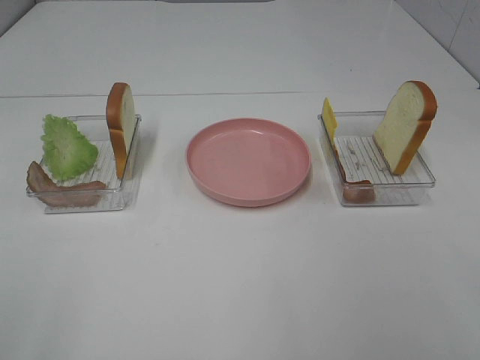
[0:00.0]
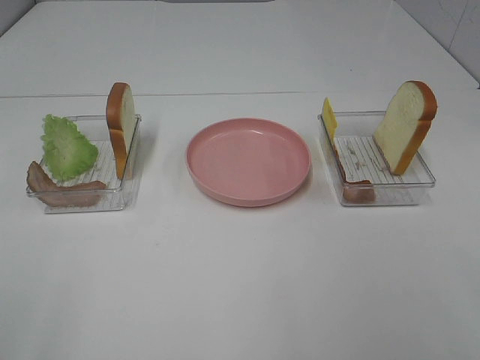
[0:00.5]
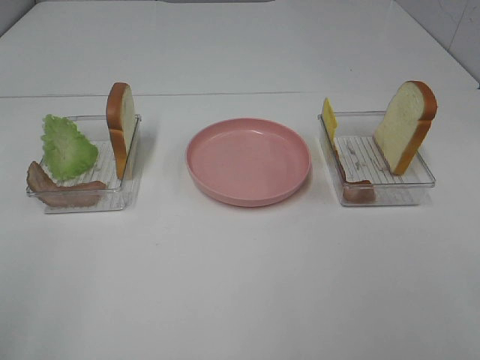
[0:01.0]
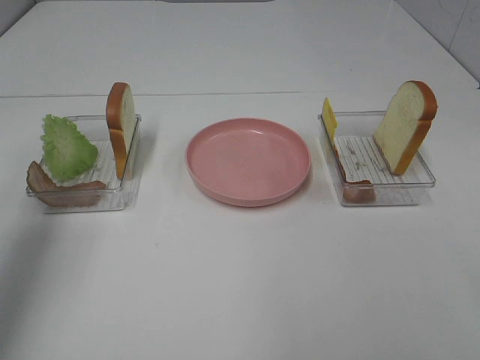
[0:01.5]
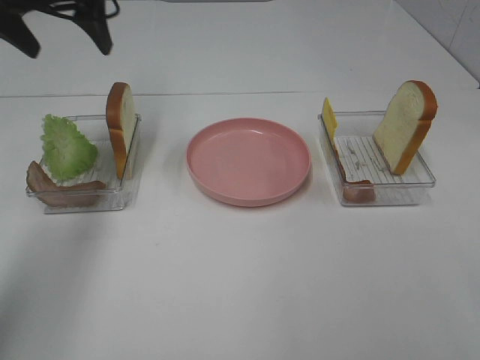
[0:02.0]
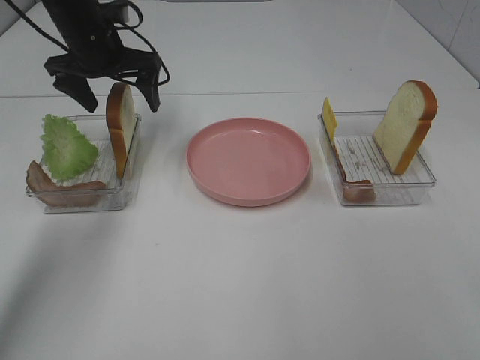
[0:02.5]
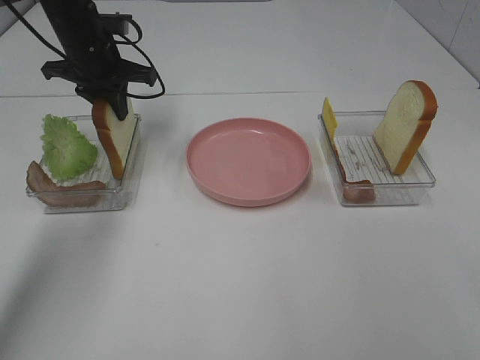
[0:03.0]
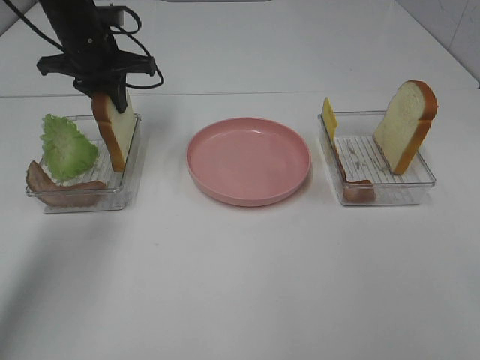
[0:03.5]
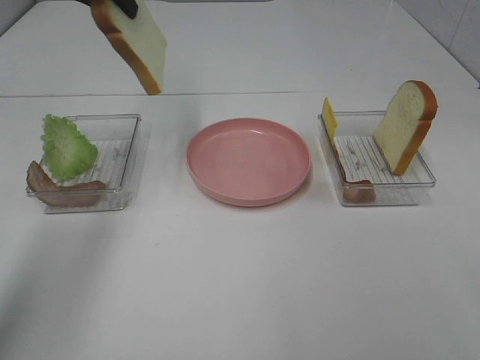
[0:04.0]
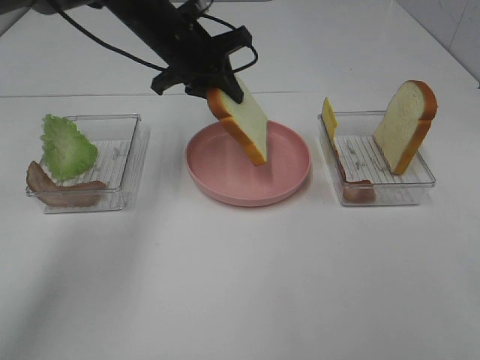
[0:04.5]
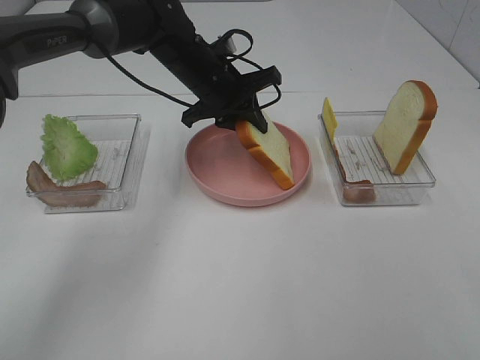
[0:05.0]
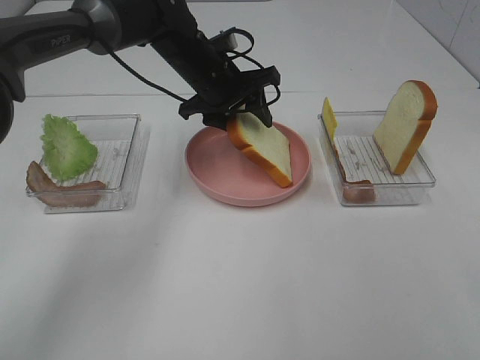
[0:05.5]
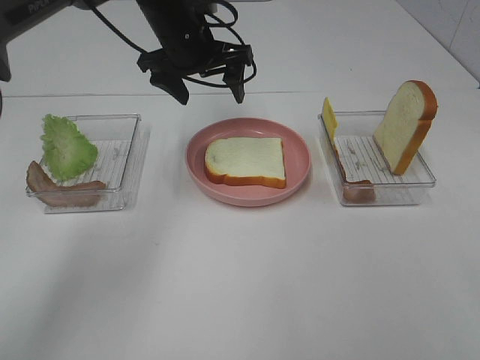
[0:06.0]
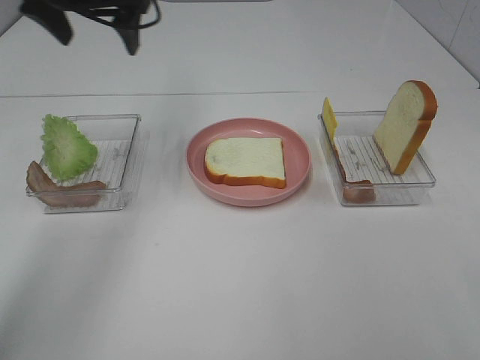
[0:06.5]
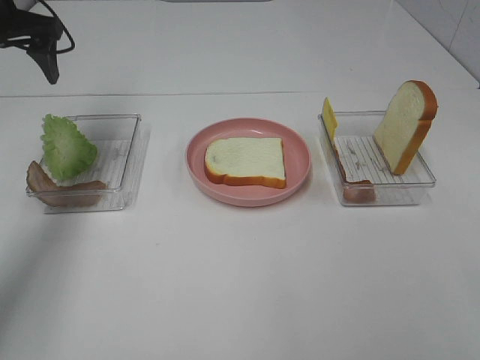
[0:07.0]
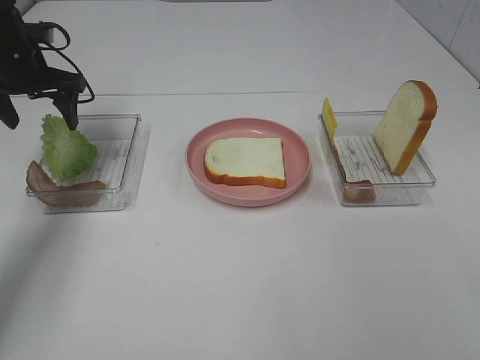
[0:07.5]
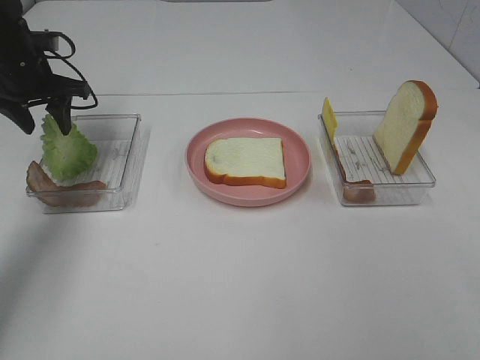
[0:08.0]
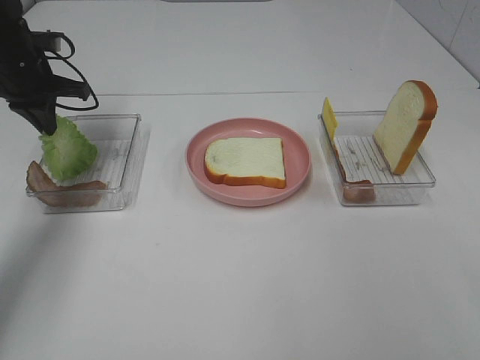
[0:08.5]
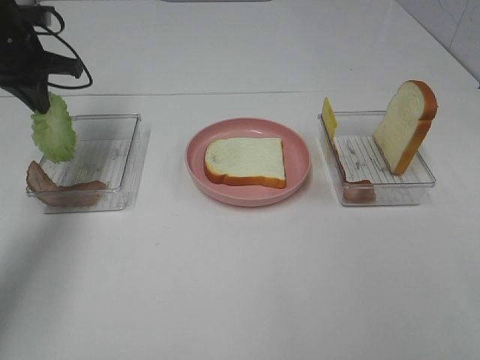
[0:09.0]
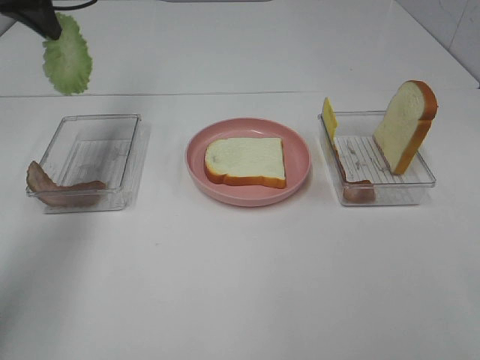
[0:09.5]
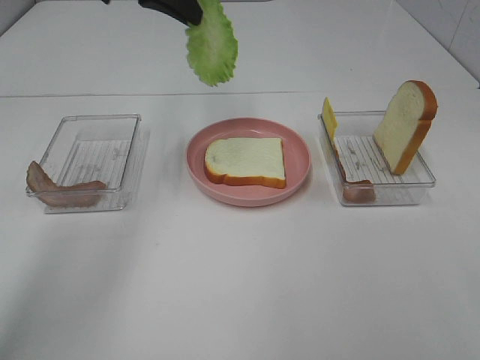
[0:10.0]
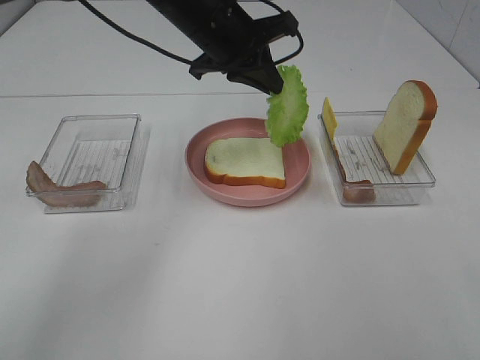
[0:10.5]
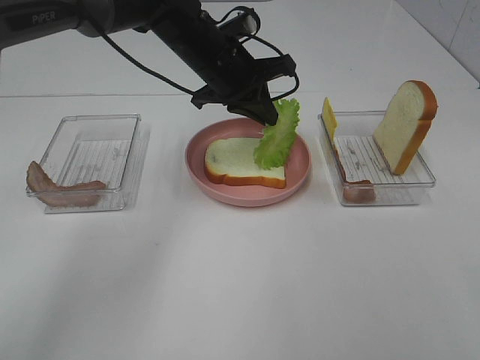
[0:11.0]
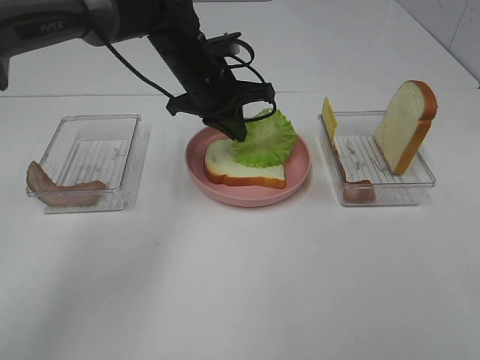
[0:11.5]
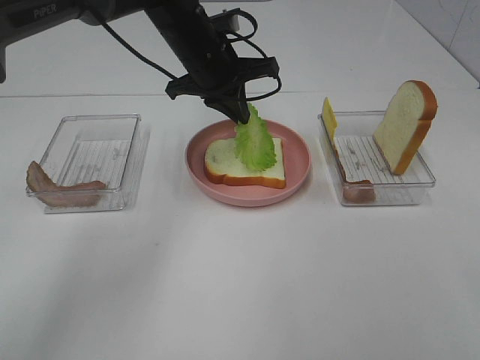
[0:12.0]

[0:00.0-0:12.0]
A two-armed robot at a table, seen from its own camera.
Task of the whole recording: Make sandwiches.
Step, 0:00.0 to 0:03.0: Left hand:grab the bread slice.
Step, 0:03.5 to 0:06.0: Left hand:place the bread slice on the plate.
Step, 0:06.5 to 0:08.5: Left hand:grab the lettuce slice.
0:00.0 to 0:02.0: The left gripper shifts about 40 cm forward.
0:02.0 to 0:04.0: The left gripper goes downward and returns, approximately 10 cm each way, and closes up.
0:04.0 to 0:06.0: The left gripper is displaced to the right and downward by approximately 15 cm, and opens up.
0:06.0 to 0:08.0: The left gripper travels to the left by approximately 20 cm.
0:08.0 to 0:10.0: The left gripper heads to the right and upward, covering approximately 25 cm, and closes its fingers.
0:10.0 to 0:12.0: The left gripper shifts about 15 cm downward and to the right.

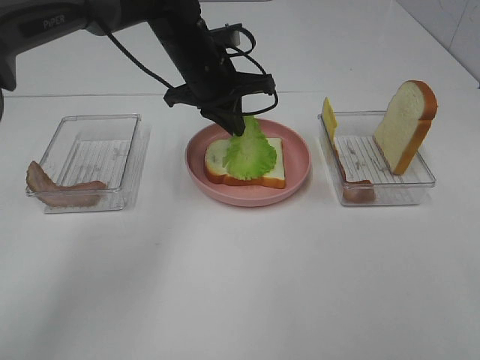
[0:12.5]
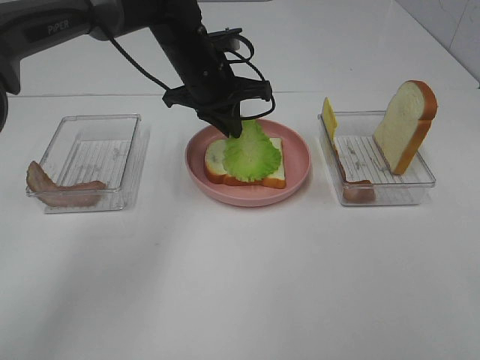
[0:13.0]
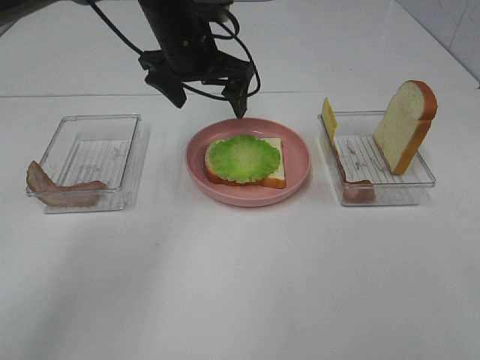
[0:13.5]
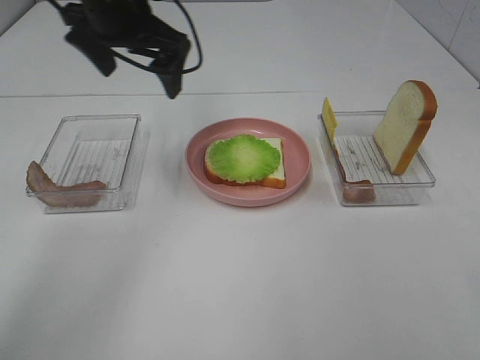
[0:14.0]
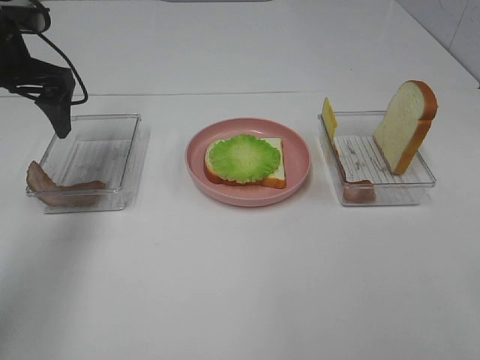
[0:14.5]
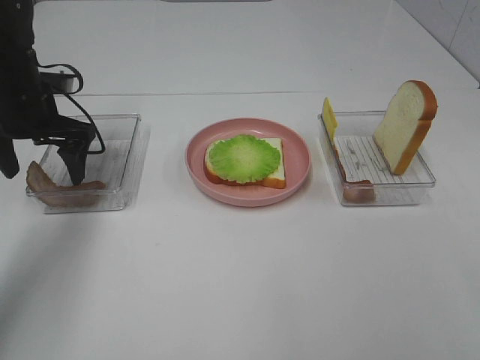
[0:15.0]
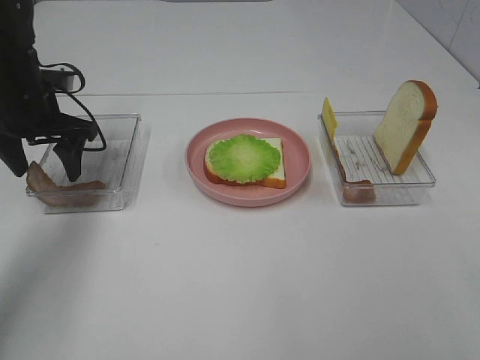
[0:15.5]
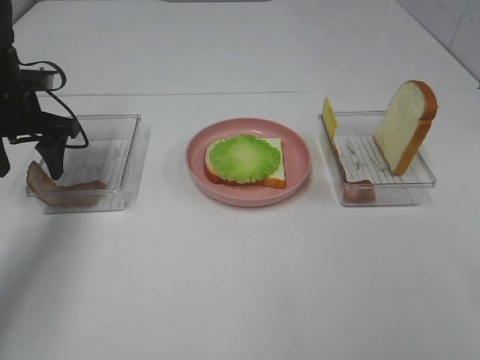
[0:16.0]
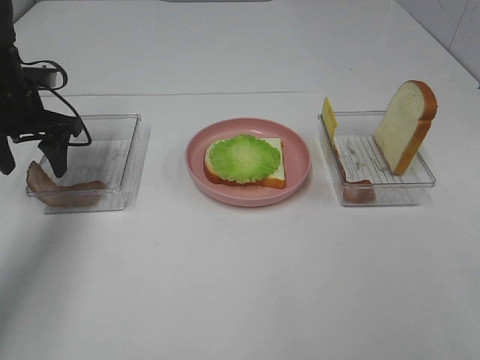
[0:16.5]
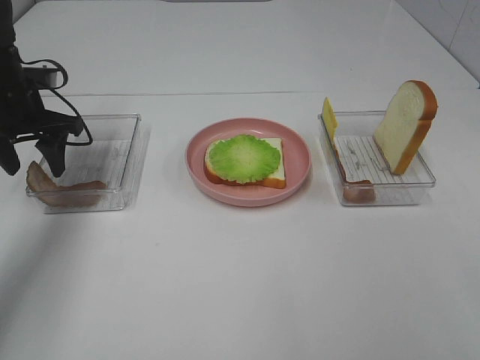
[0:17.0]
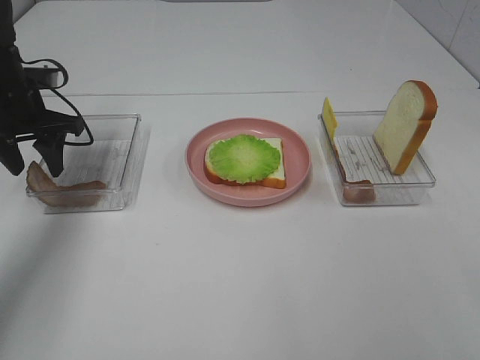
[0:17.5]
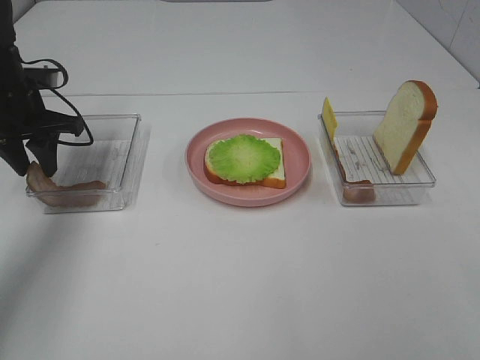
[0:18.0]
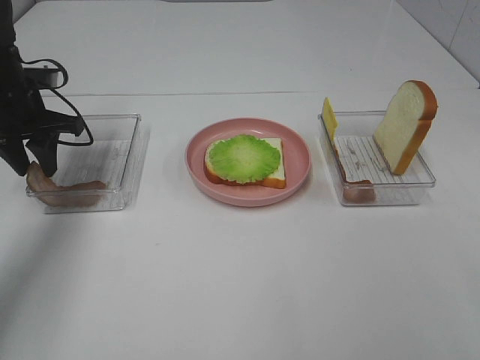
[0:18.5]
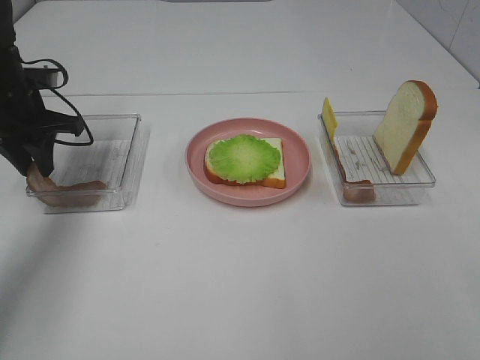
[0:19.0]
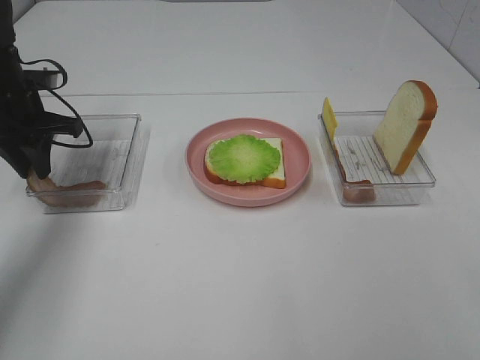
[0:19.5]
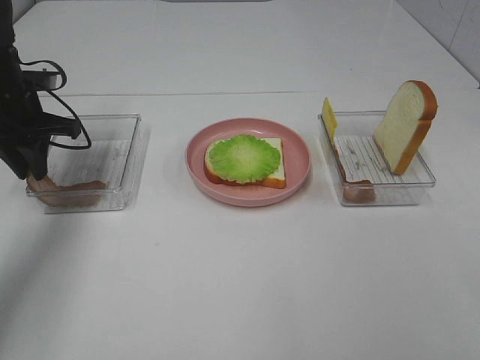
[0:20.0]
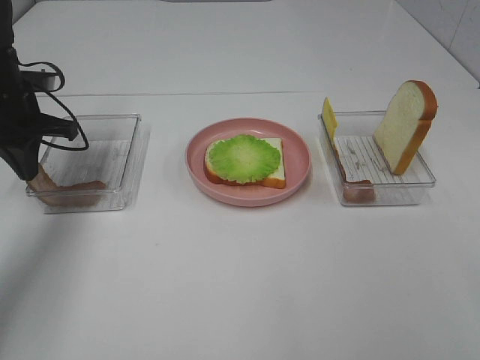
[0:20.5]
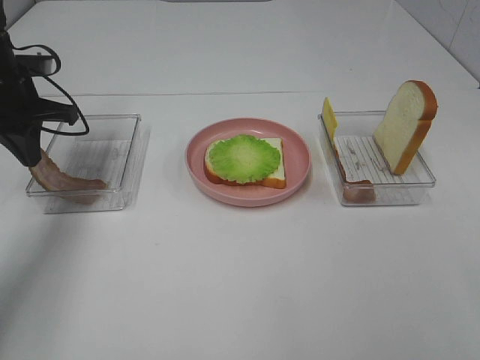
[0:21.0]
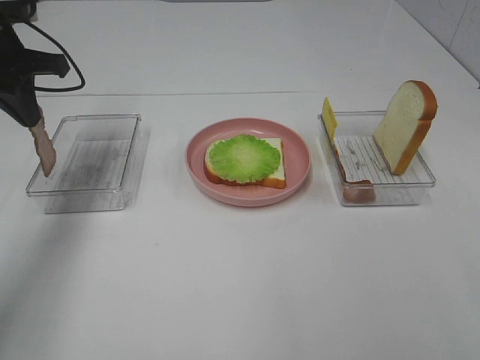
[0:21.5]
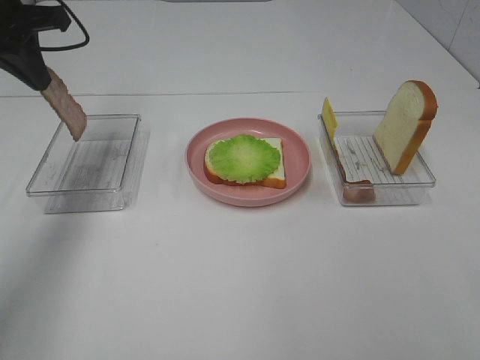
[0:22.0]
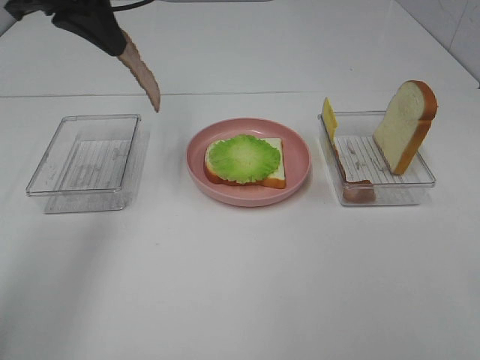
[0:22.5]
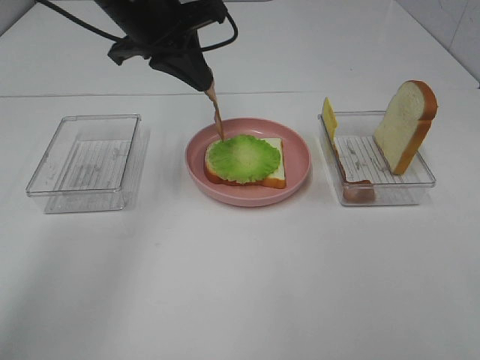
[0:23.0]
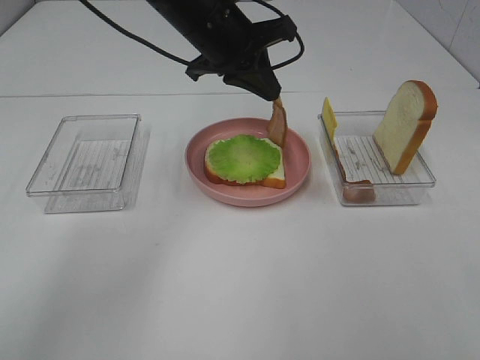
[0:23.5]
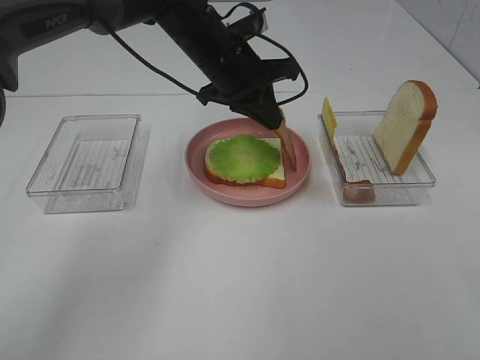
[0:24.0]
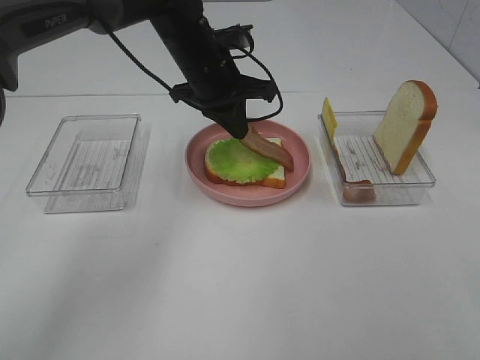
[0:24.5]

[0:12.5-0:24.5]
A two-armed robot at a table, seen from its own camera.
Task of the whole recording: Make sandwiches.
Step, 0:13.5 to 0:21.0: Left hand:grab the bacon.
0:12.5 to 0:14.5: The left gripper goes roughly 20 cm to the left, and opens up.
0:14.5 to 0:16.5: The left gripper goes roughly 10 cm downward.
0:16.5 to 0:18.5: Both grippers stay put.
0:18.5 to 0:20.5: The left gripper closes up.
0:20.5 to 0:22.5: The left gripper moves upward and to the right, some 20 cm.
0:22.5 to 0:24.5: The left gripper travels to the right and downward by about 20 cm.

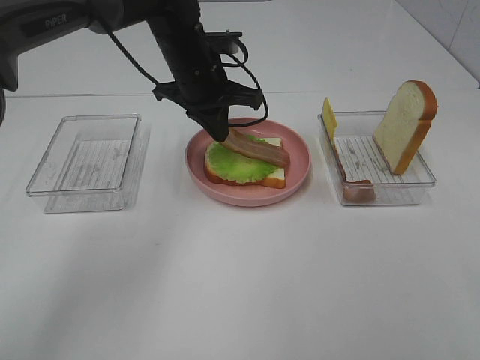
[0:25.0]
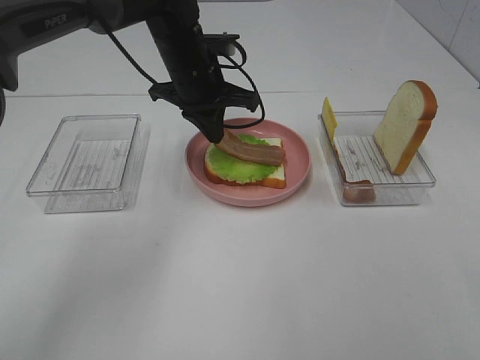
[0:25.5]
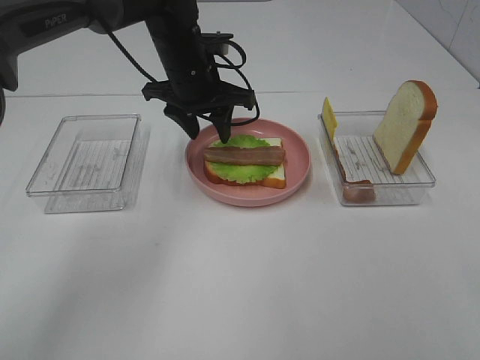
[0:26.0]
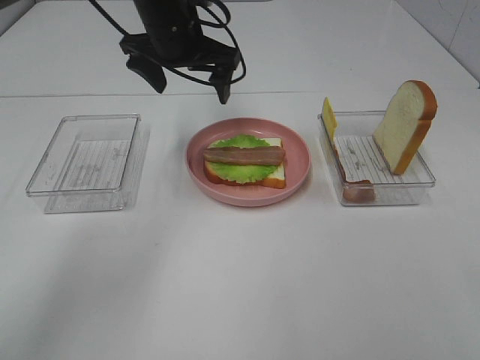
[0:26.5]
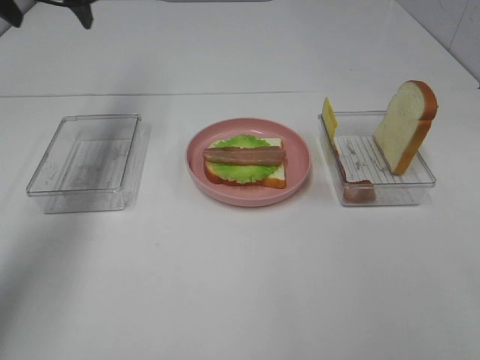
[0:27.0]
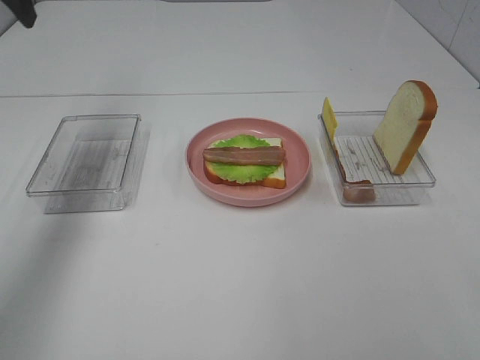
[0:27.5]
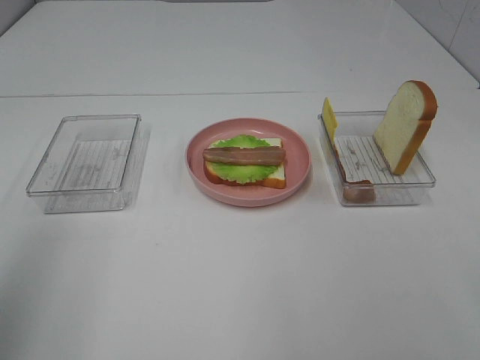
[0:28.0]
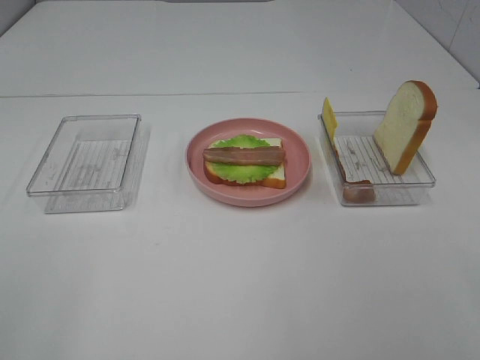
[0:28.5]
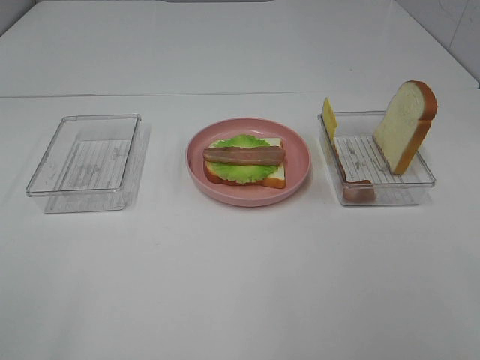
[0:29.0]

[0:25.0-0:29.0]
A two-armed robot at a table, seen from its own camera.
Task of the whole recording: Make sandwiches.
0:25.0 to 0:27.0: The left gripper travels to the left and upward by approximately 25 cm, and opens.
0:27.0 to 0:29.0: The left gripper travels backward by approximately 50 cm.
